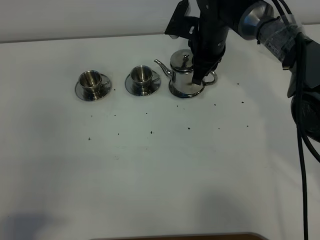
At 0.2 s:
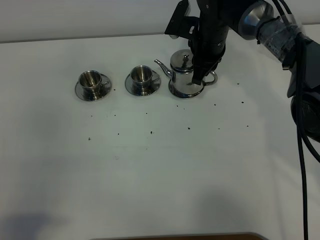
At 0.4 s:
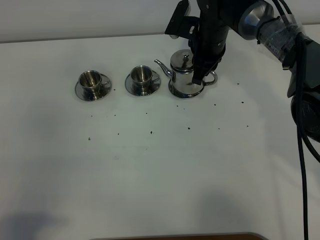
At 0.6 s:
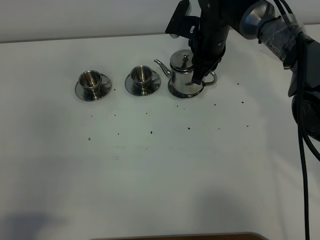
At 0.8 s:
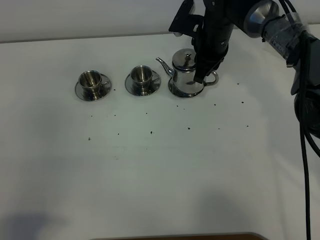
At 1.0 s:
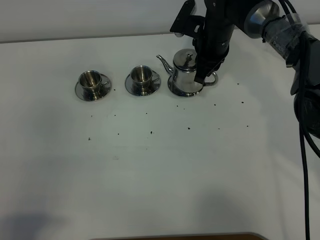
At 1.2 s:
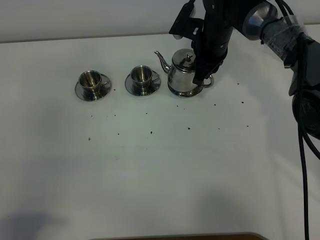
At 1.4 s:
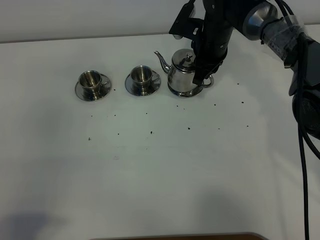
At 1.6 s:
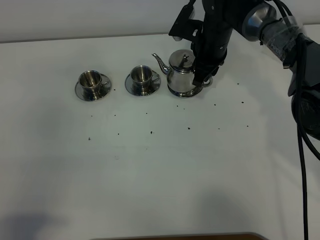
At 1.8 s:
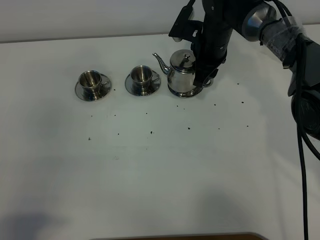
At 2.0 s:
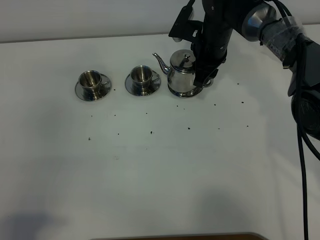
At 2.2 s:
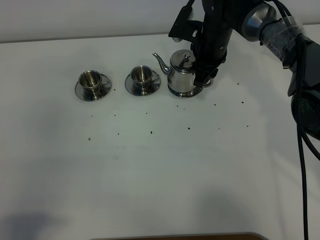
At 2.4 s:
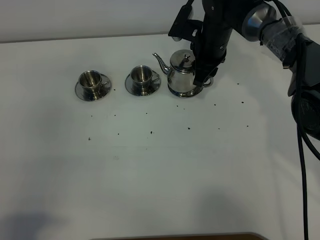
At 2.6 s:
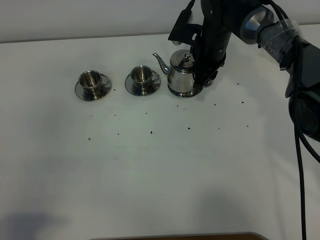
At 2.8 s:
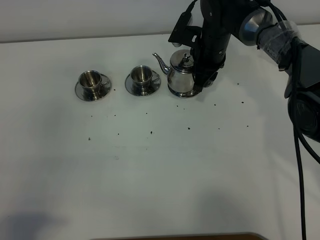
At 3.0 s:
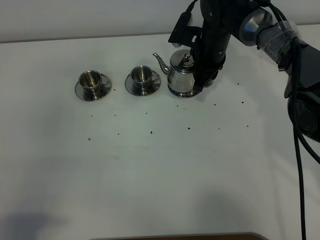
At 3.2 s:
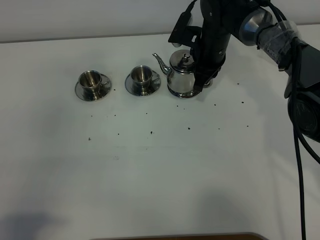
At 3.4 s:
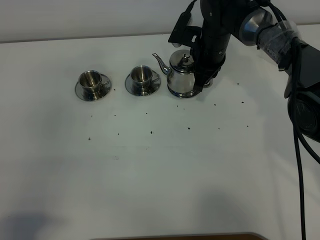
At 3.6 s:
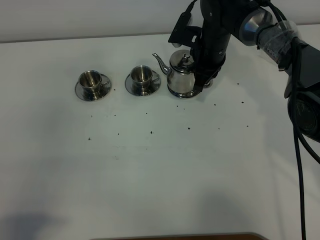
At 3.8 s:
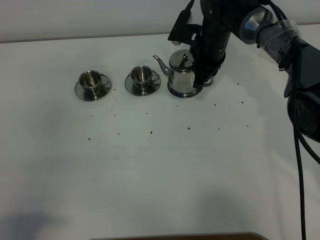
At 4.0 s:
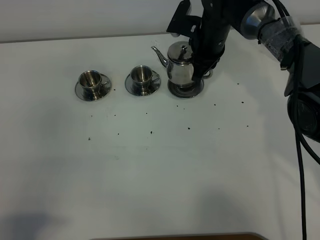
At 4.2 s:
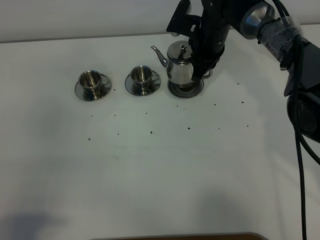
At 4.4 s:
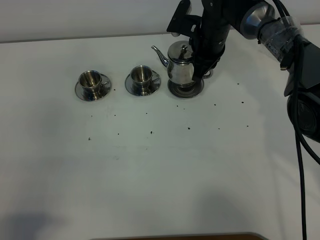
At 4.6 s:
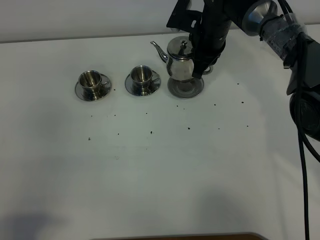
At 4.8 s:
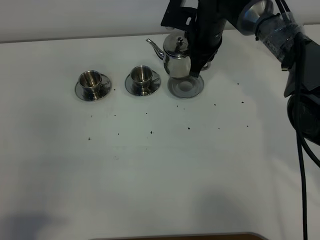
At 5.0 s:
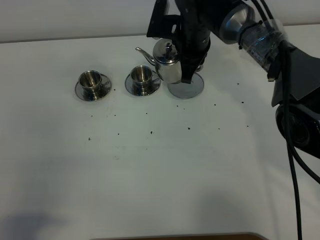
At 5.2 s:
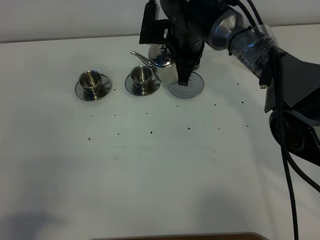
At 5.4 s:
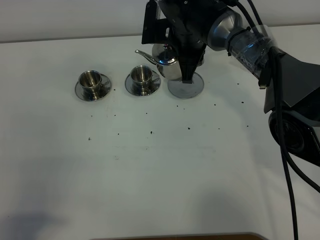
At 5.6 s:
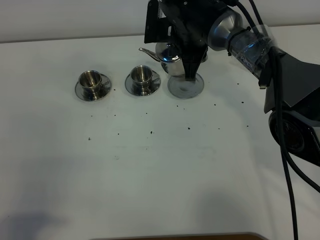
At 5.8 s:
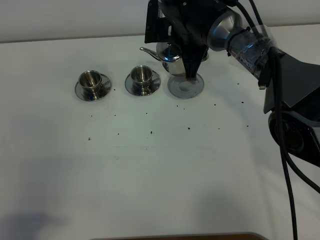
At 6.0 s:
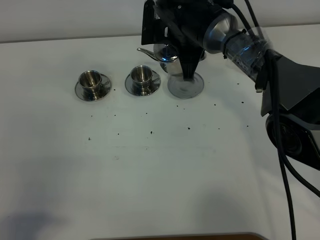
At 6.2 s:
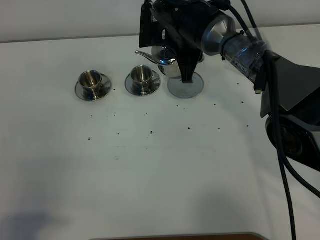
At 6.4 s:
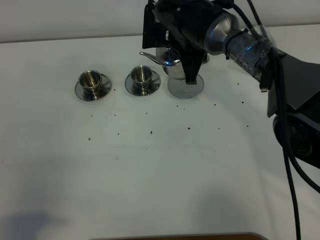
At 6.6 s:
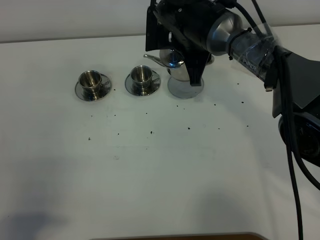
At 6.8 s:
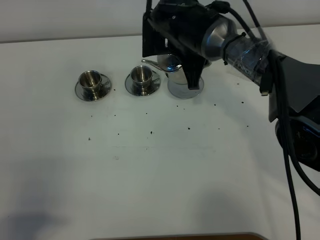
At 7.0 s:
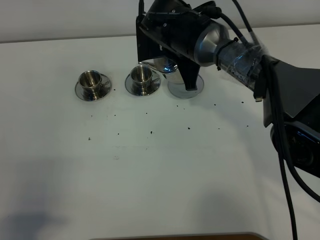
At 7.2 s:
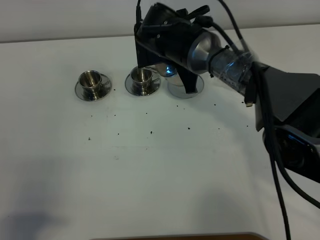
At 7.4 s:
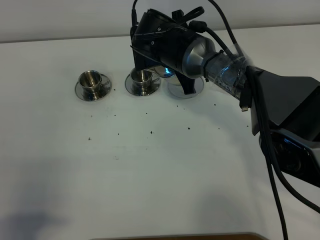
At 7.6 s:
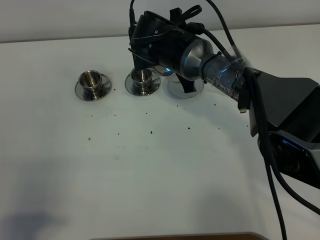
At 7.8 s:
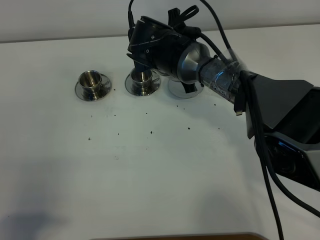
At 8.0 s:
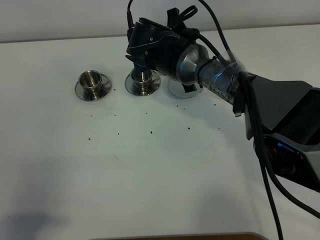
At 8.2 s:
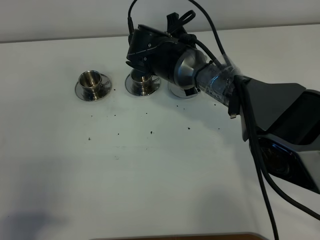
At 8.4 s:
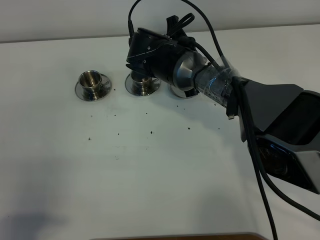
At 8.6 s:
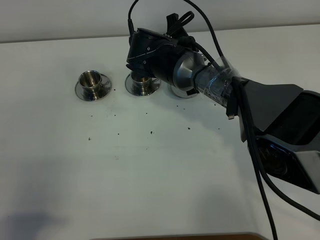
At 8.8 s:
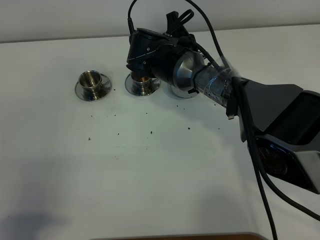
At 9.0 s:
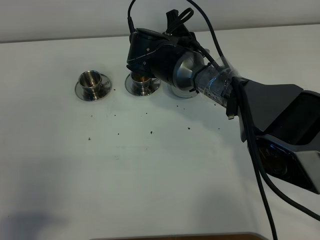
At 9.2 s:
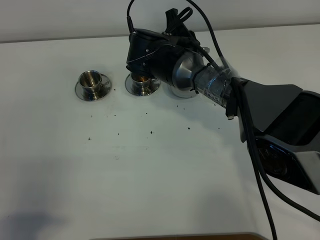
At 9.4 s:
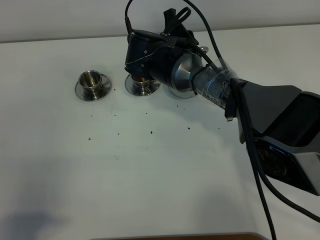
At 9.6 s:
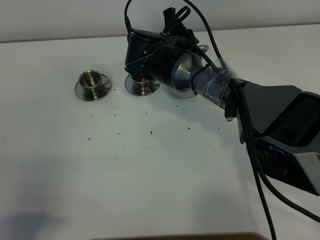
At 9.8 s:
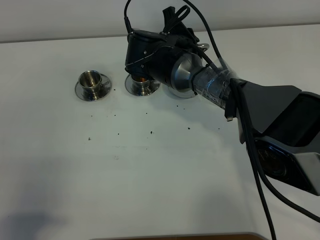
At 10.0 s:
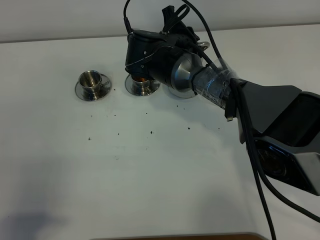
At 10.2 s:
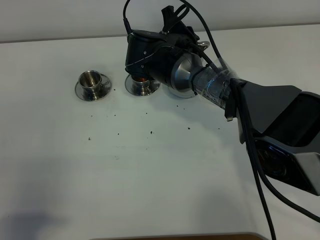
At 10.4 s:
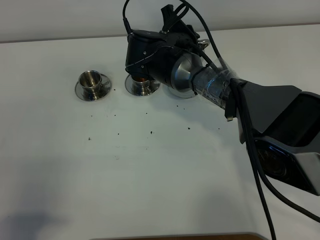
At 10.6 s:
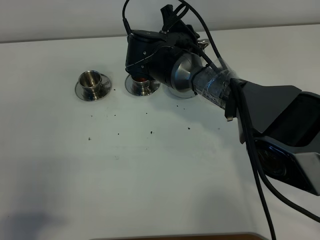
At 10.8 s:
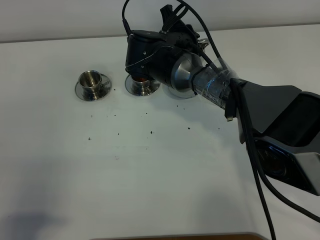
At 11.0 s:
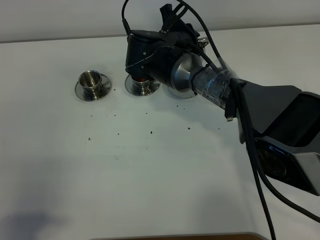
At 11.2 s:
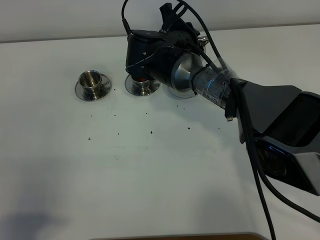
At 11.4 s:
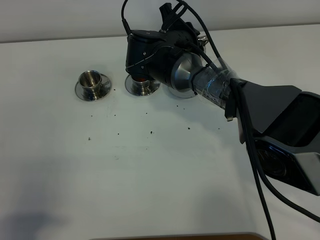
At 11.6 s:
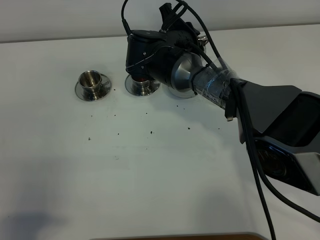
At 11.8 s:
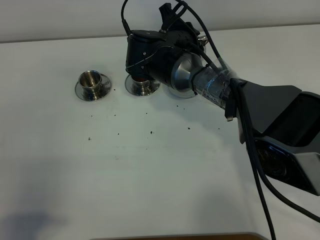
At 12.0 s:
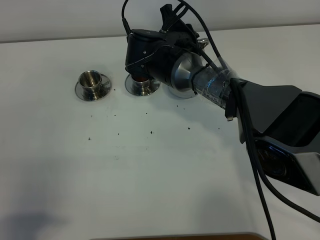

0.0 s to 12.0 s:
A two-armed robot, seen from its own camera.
Task of the whole recording: grasp the stainless steel teapot and pour the tea into the two stainless steel teacups one by one, put the stainless steel teapot back in its original place.
Step, 0.0 to 3.8 s: Pick up the teapot with the right gripper.
0.0 to 4.4 s: There are only small adjustments of the grippers.
4.4 to 6.0 s: The right gripper moves to the left, about 5 cm.
6.0 to 7.6 s: The grippers make only small movements.
7.6 to 10.4 s: The grippers make only small movements.
10.4 to 12.0 s: Both grippers stay put.

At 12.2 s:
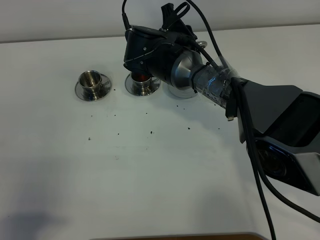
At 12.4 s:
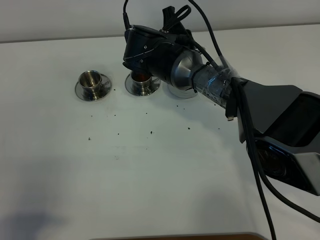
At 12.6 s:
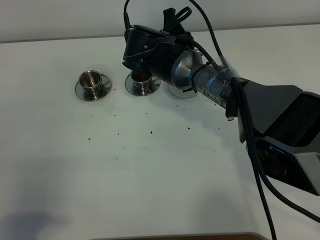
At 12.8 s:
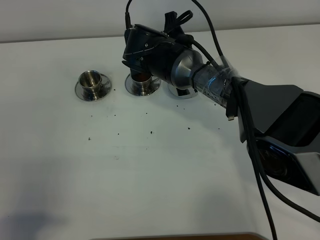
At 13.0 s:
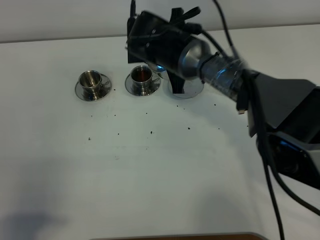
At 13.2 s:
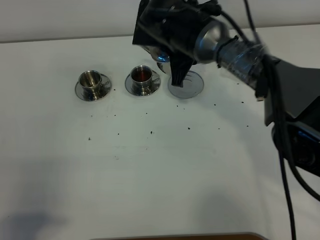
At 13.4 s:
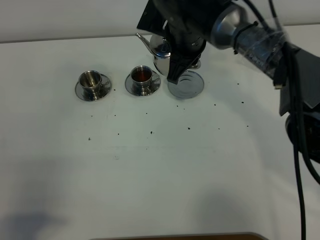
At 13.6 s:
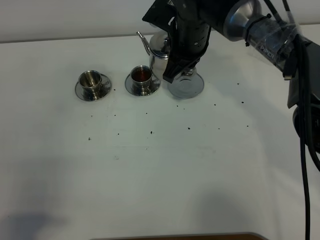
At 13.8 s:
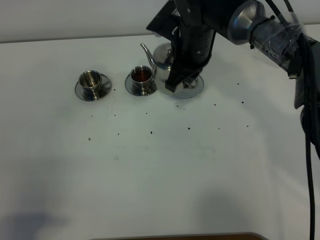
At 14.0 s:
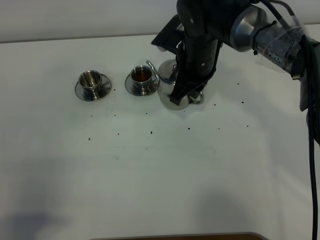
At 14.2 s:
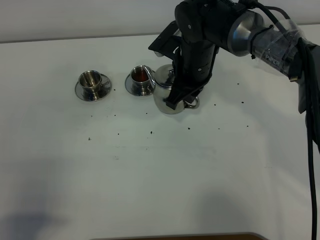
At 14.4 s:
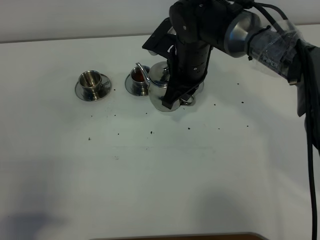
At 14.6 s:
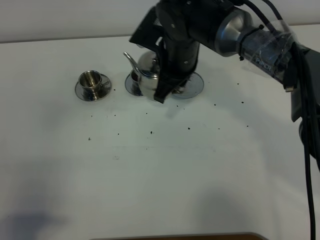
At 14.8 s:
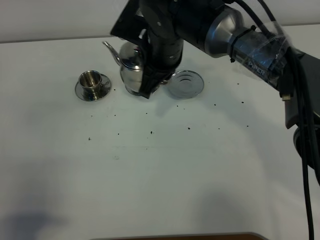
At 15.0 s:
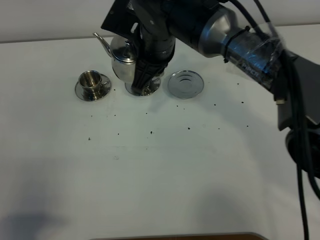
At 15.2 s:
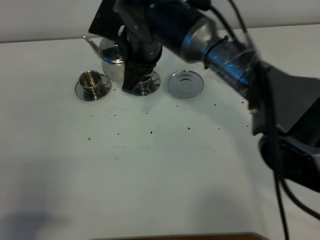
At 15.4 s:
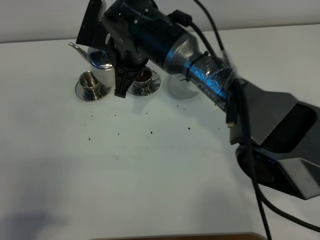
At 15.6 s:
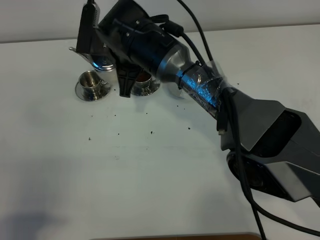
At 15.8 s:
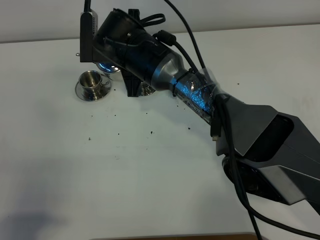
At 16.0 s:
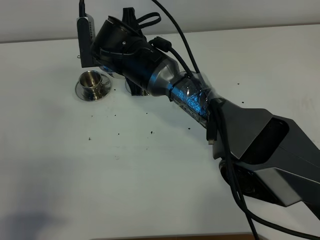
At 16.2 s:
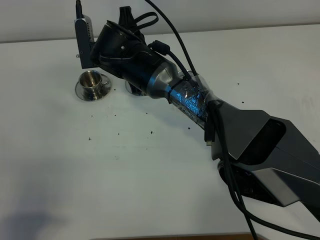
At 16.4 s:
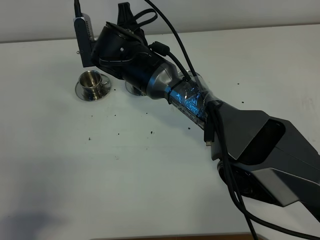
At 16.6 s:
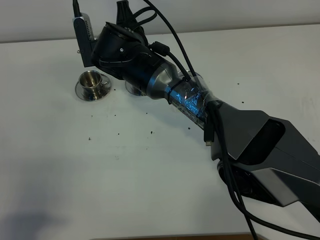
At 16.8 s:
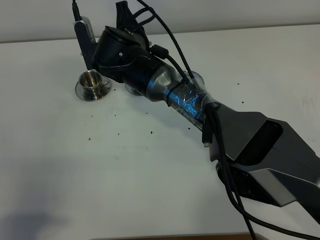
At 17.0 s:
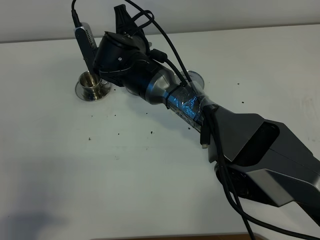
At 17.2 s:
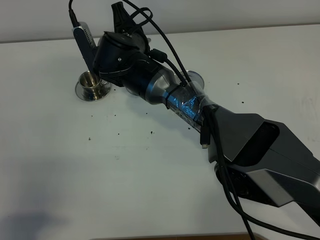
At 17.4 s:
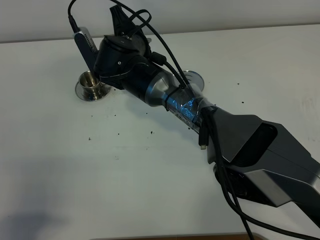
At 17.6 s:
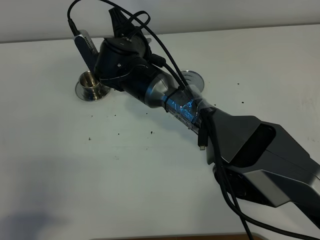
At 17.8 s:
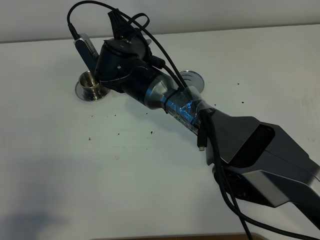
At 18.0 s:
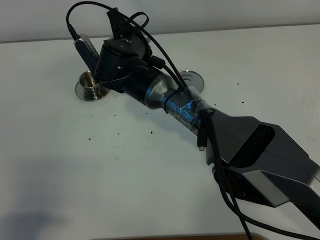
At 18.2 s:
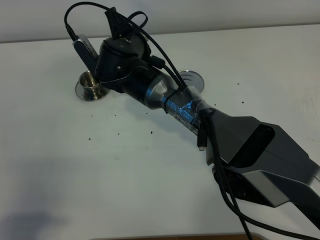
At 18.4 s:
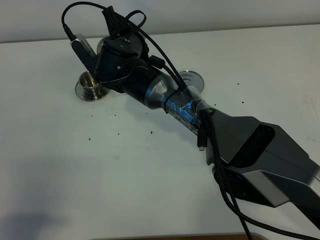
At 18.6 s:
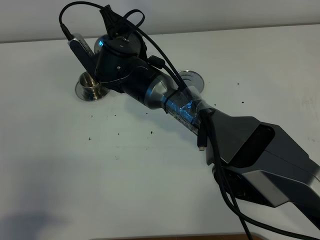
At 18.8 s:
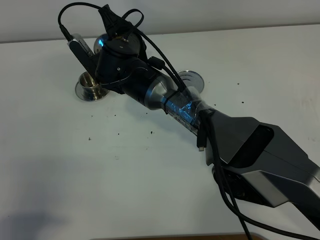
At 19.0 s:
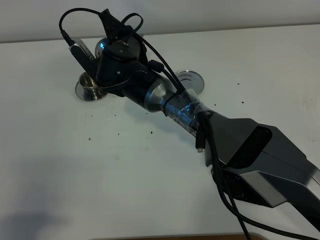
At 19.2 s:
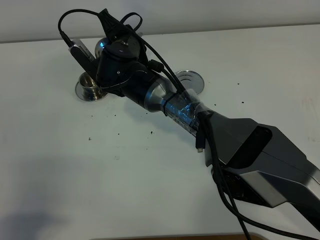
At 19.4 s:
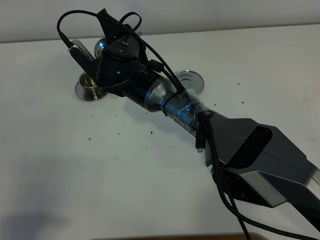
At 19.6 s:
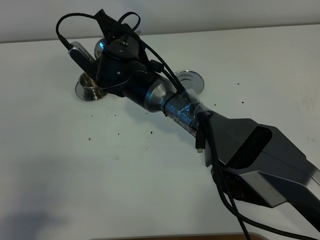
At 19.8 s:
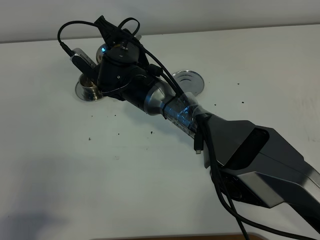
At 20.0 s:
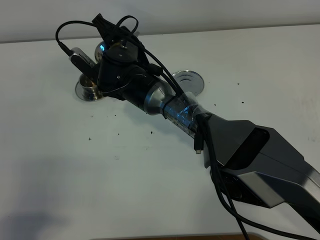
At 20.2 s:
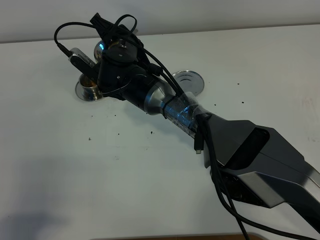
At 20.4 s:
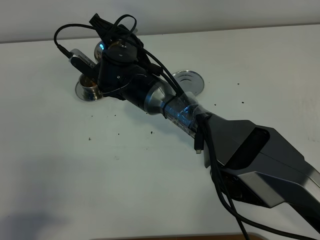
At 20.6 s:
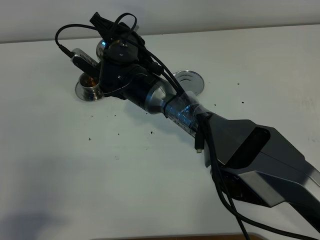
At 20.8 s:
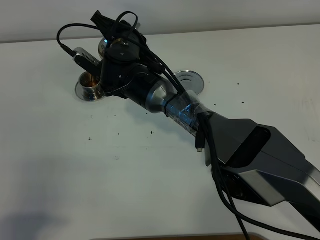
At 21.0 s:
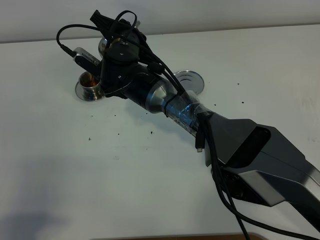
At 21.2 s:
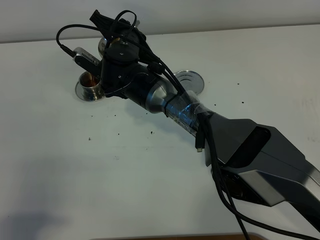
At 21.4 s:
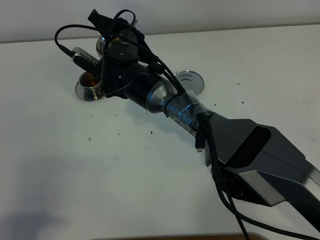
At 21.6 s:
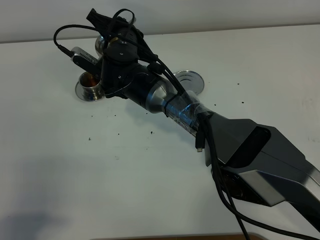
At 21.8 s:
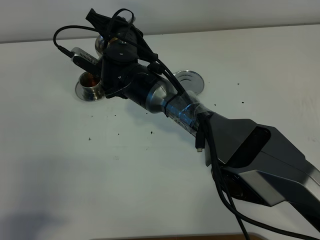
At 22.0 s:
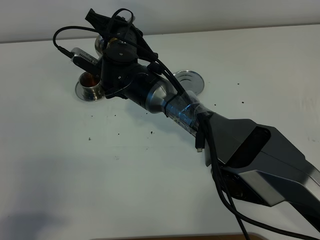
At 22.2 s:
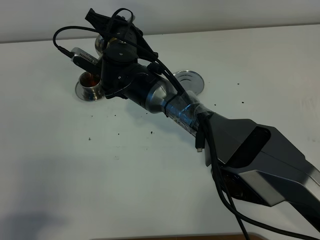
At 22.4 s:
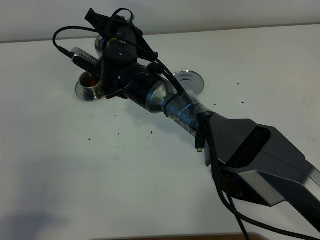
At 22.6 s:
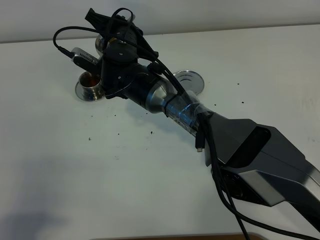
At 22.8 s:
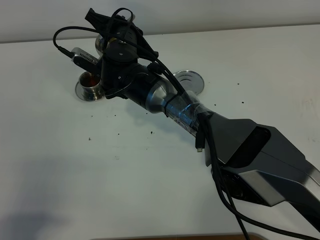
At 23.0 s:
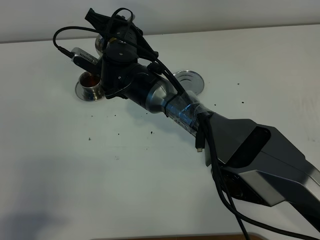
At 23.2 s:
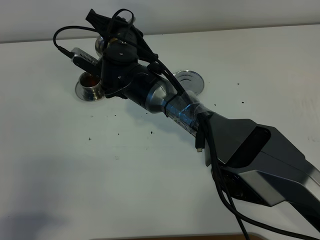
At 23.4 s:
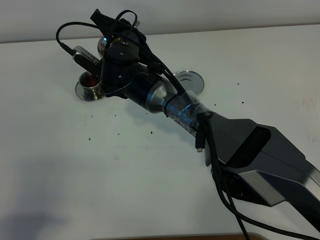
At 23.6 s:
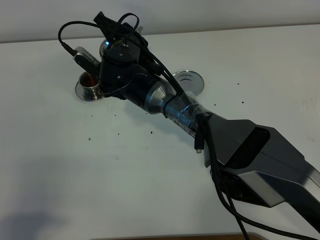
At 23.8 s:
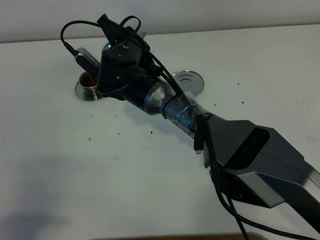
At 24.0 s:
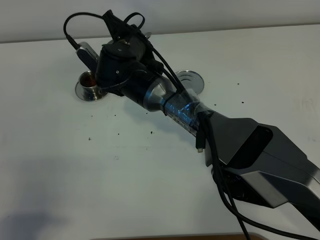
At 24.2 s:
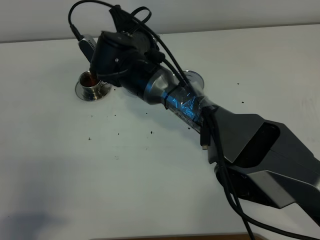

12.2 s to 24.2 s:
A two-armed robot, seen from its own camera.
Task of the whole recording: grasp the stainless steel teapot and pour the tea into the two stainless steel teacups one by one, put the stainless steel teapot back in its original place.
Step, 12.2 to 24.0 s: Pour tea into the teacup with the right gripper.
12.2 to 13.8 s: The right gripper goes approximately 5 cm to the right.
13.8 to 15.2 s: The right gripper moves to the left, roughly 10 cm.
15.2 to 16.6 s: The right gripper shifts by approximately 5 cm.
18.2 to 19.8 s: The grippers make only small movements.
19.8 to 21.2 s: The grippers move only a little.
21.2 to 22.6 s: Both grippers stay put.
